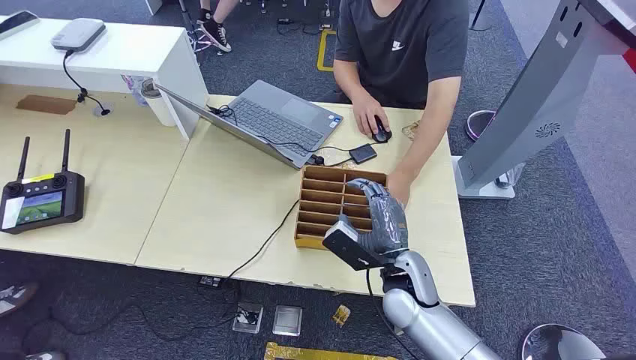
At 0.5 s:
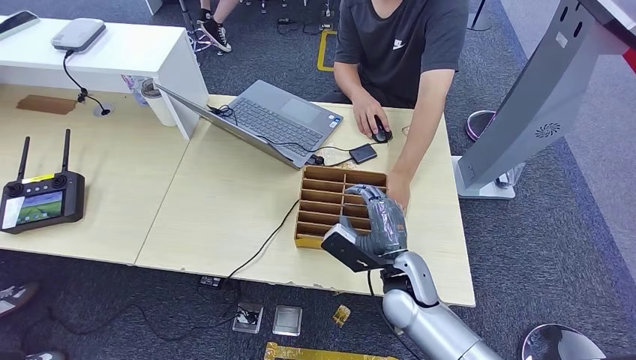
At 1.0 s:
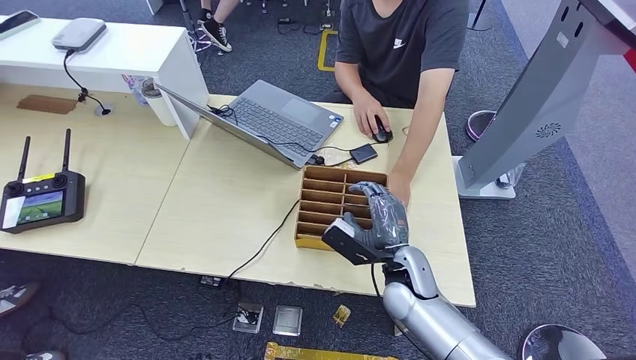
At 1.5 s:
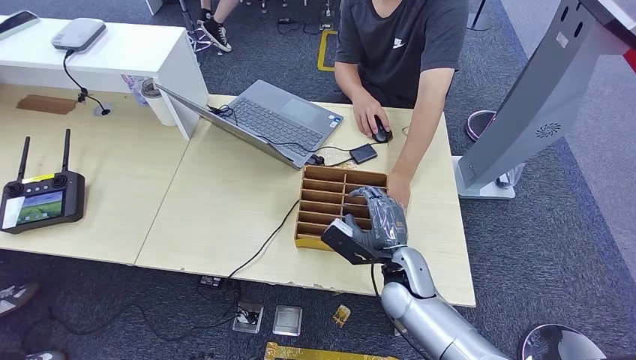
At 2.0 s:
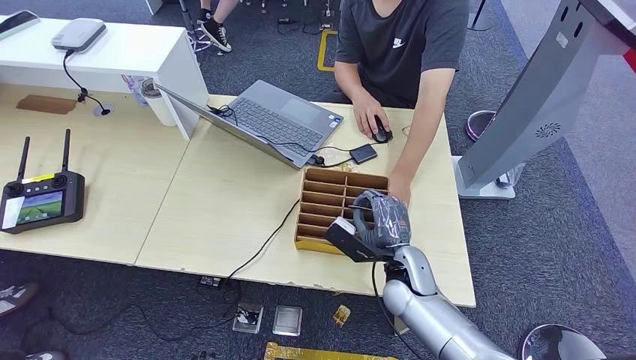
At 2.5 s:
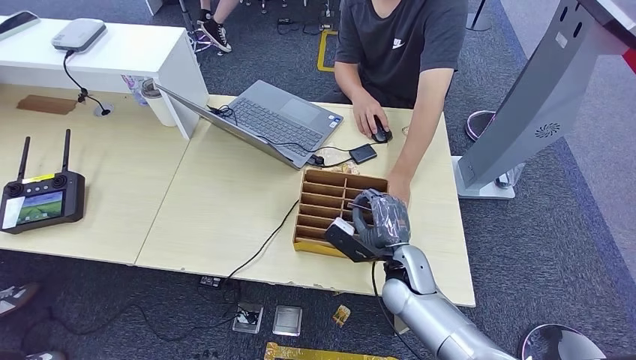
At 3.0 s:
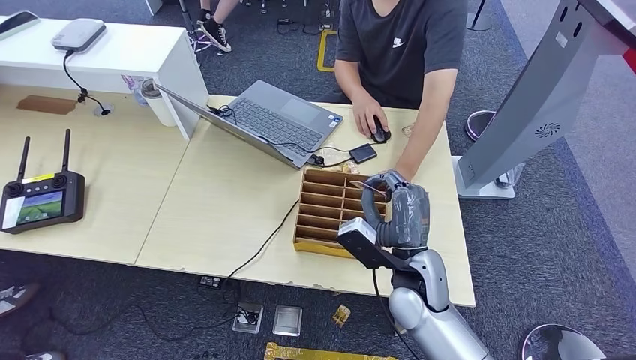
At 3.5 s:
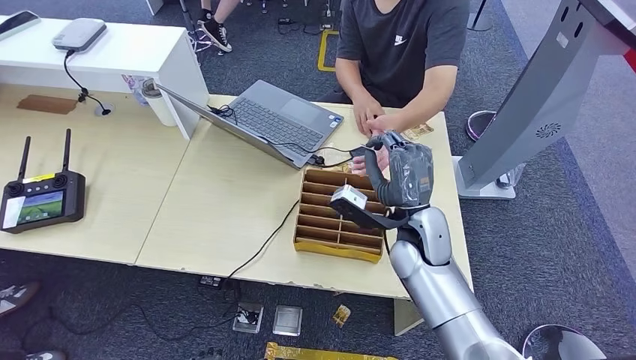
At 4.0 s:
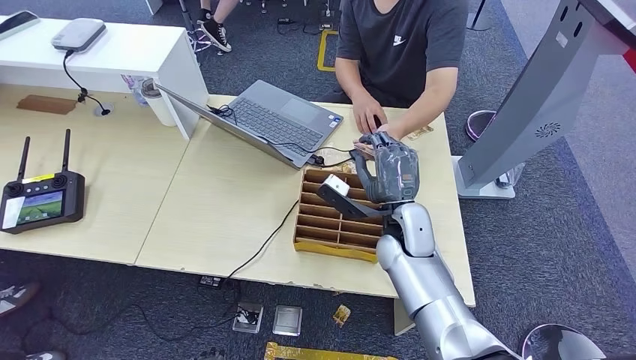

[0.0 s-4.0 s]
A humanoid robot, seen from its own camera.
Step, 0.0 to 2.5 s: Pick up the key card from the card box.
Step, 3.0 to 4.0 s: Hand the key card to the target.
2.0 to 4.0 s: The right hand goes about 10 cm upward and forward.
